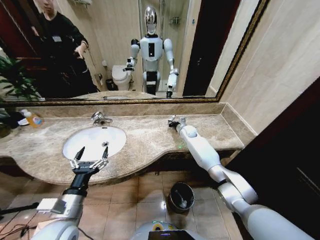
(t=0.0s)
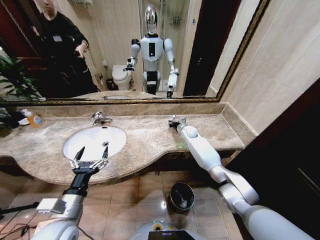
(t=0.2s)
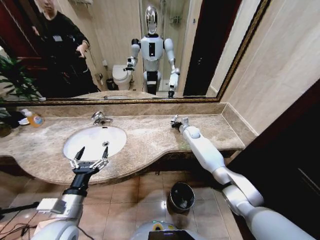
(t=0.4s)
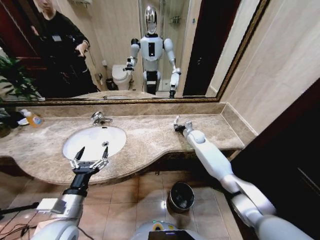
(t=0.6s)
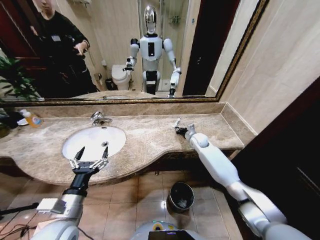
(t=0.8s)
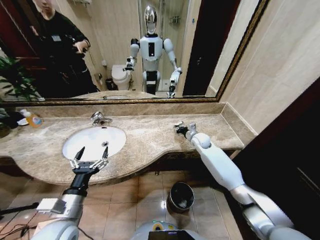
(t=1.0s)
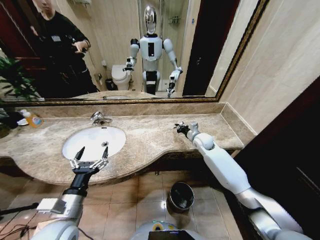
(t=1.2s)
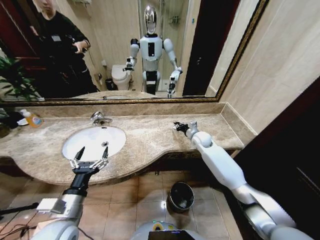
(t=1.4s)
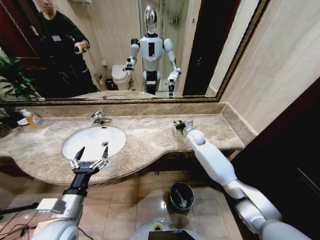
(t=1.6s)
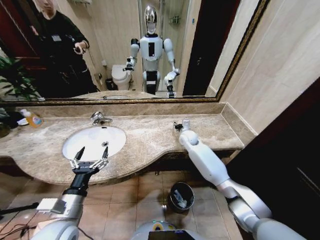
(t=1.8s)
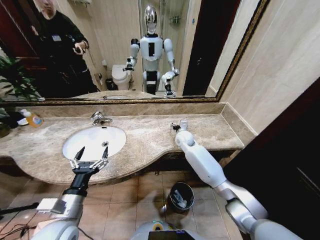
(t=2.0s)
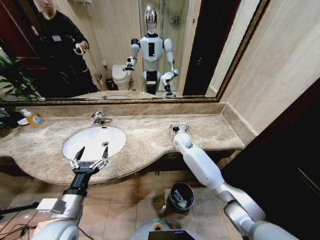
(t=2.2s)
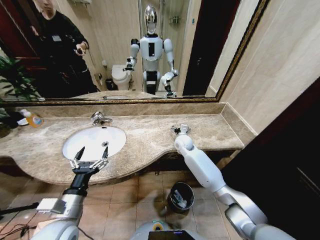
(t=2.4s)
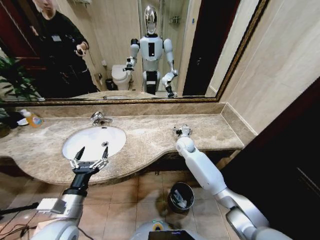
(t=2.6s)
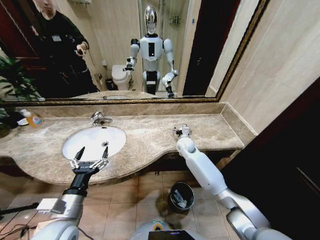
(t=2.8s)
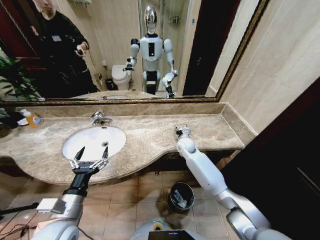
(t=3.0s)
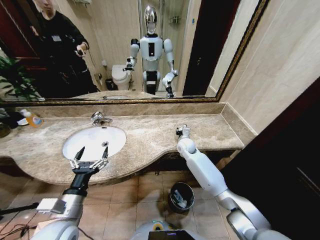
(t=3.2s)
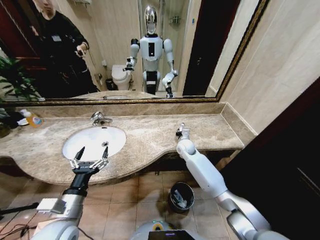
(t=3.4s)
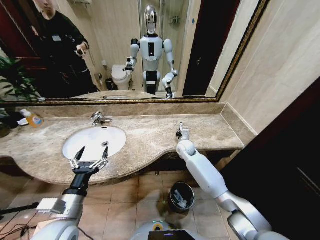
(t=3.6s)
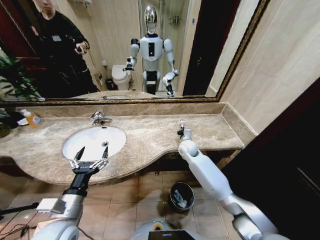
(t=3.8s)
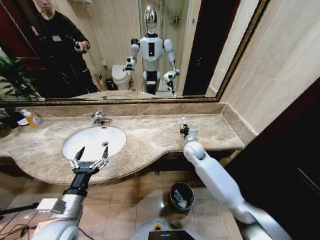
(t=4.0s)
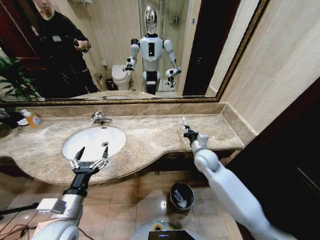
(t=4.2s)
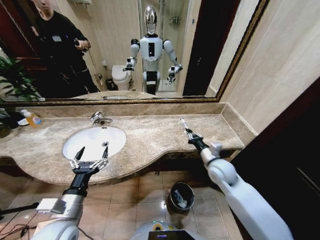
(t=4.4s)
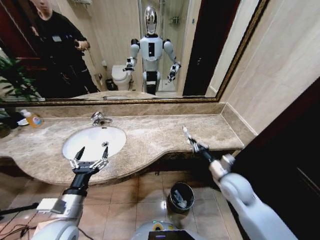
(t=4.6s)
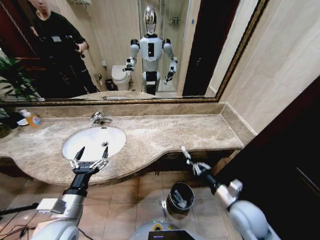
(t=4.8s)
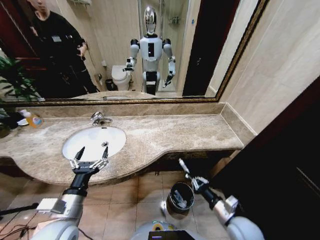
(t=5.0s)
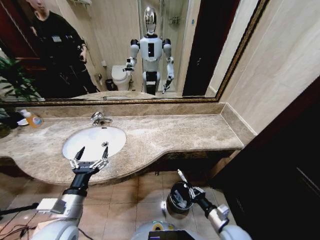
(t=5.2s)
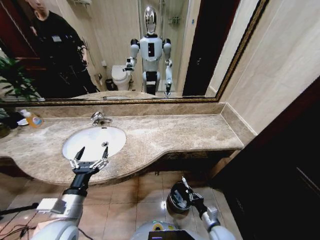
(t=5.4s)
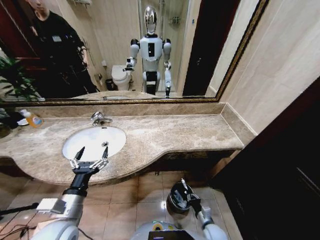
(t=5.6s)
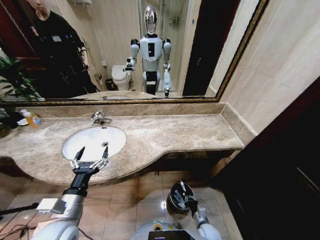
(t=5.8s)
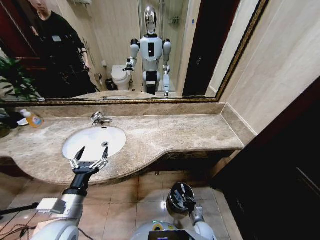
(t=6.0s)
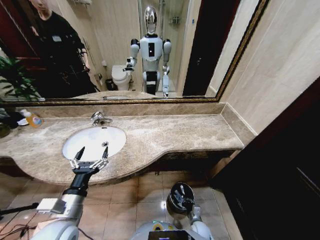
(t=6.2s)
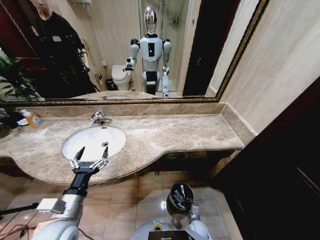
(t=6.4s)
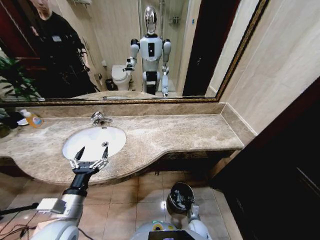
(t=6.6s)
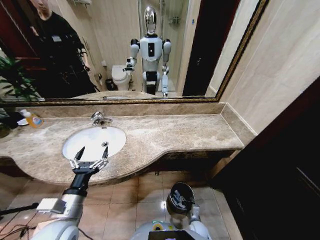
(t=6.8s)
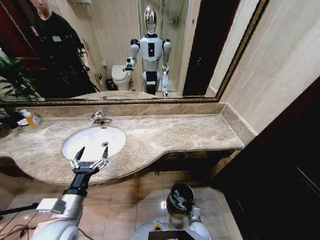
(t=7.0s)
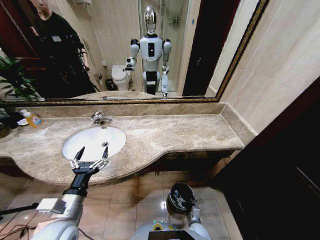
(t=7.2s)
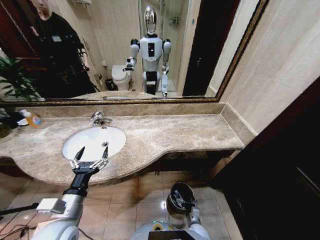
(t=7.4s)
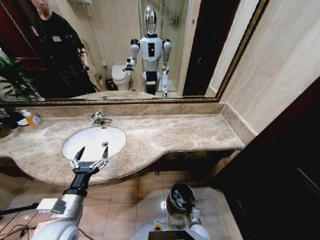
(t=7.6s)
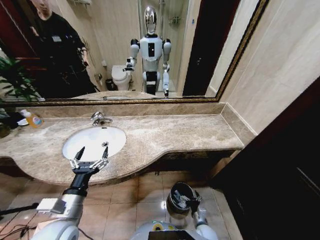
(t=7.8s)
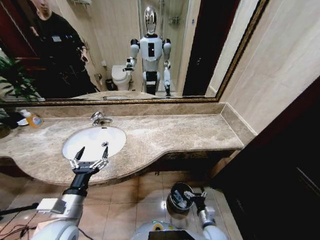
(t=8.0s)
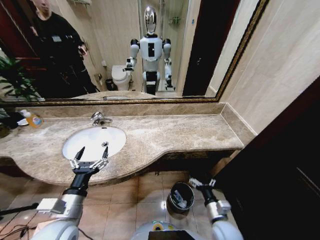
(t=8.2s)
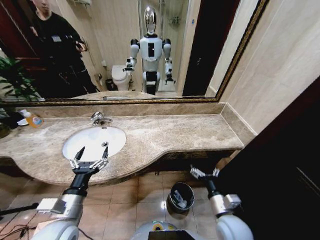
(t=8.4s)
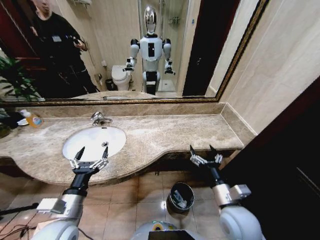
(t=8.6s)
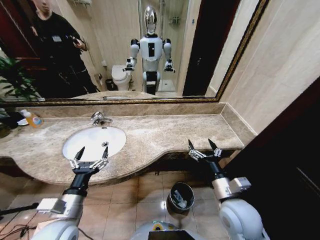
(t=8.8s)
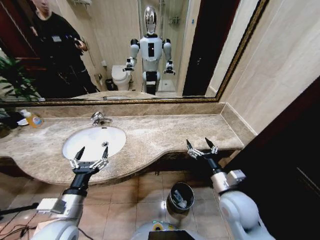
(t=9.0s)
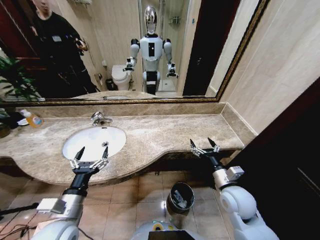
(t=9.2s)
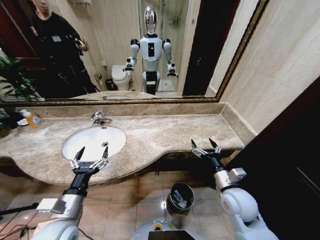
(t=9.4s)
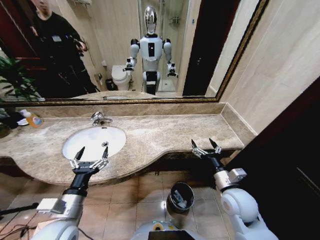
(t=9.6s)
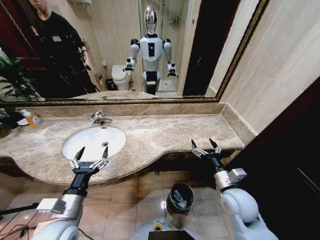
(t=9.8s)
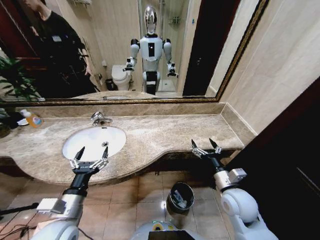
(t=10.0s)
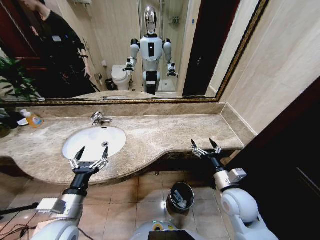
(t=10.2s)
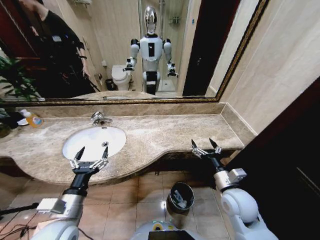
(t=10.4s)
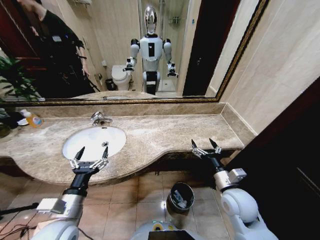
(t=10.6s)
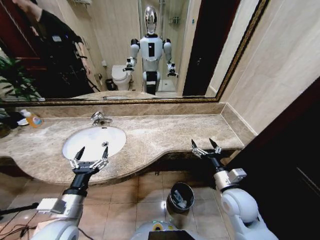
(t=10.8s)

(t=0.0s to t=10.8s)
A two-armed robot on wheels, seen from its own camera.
Task of the whole recording: Pick up the trash from the sink and place it in the trash bin.
t=0.0s - t=1.6s: The right gripper travels backward by roughly 5 cm, and opens up.
t=1.6s - t=3.0s: The right gripper travels to the left by about 5 cm, and opens up.
t=3.0s - t=4.6s: The right gripper shifts approximately 25 cm backward and to the right, and closes.
t=4.6s - t=6.2s: The right gripper shifts some 35 cm downward.
t=6.2s - t=7.8s: The right gripper goes about 5 cm upward, and opens.
t=7.8s - t=9.2s: The right gripper moves upward, some 30 cm.
t=9.2s - t=10.8s: The two grippers keep their place.
